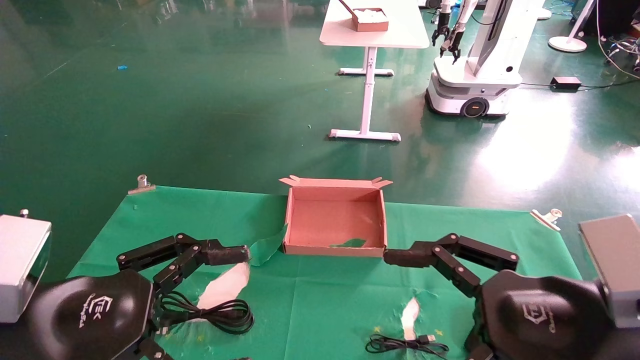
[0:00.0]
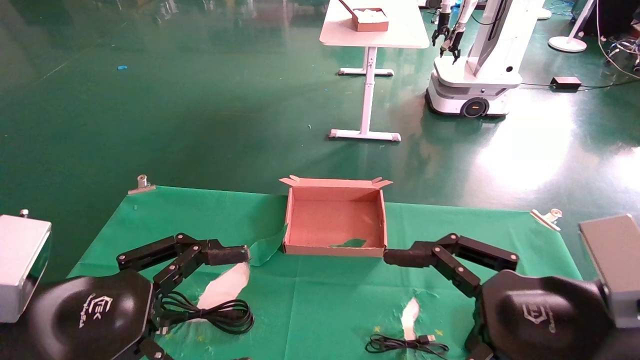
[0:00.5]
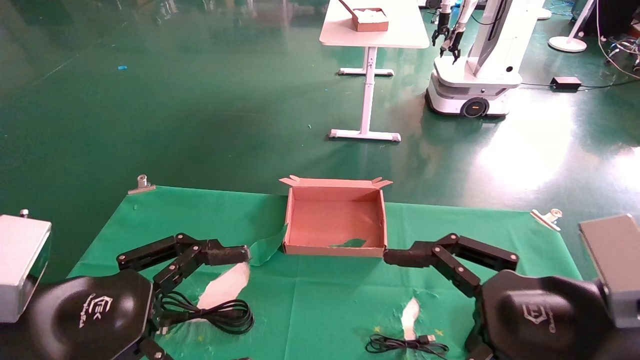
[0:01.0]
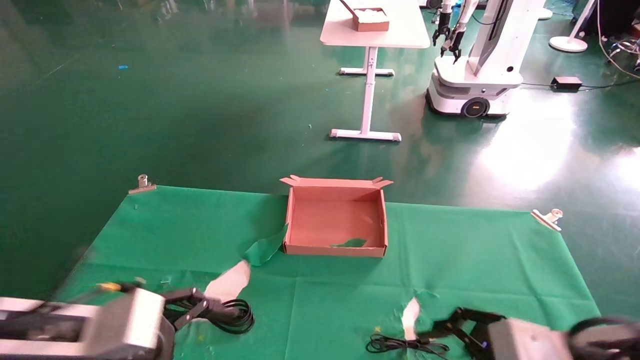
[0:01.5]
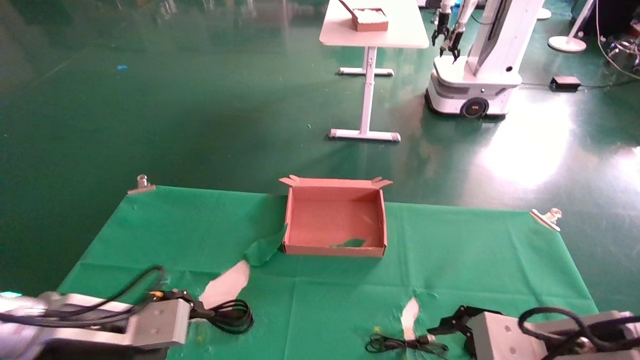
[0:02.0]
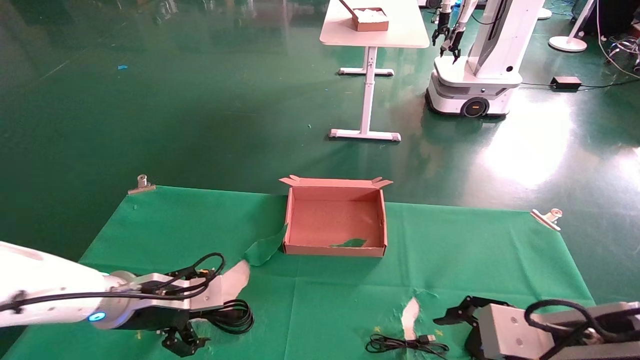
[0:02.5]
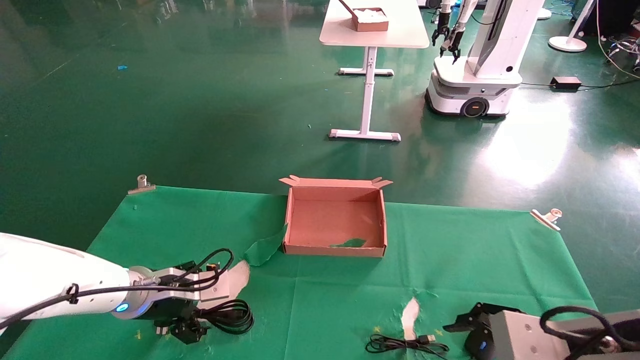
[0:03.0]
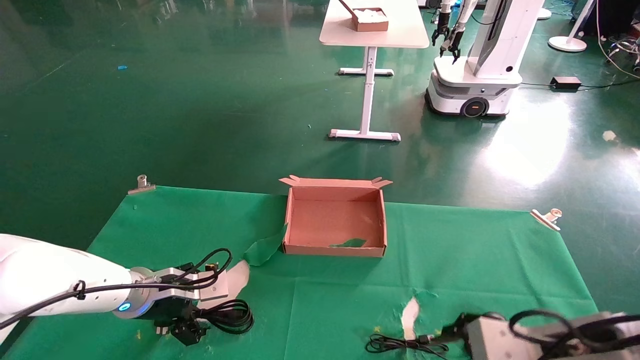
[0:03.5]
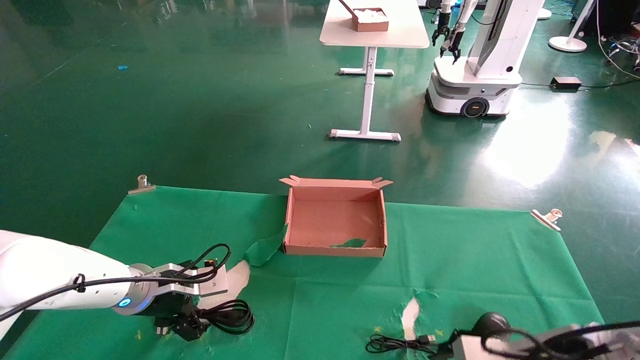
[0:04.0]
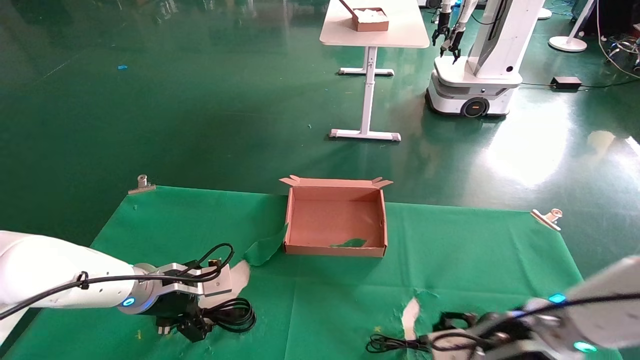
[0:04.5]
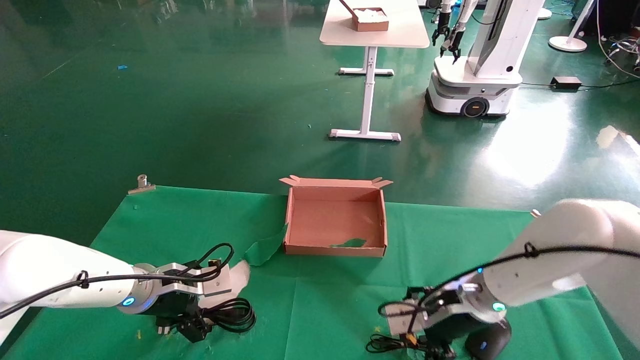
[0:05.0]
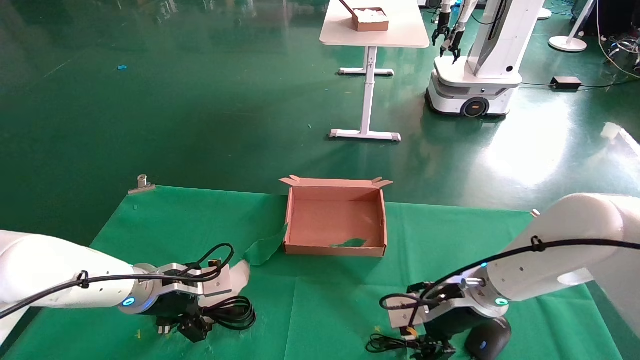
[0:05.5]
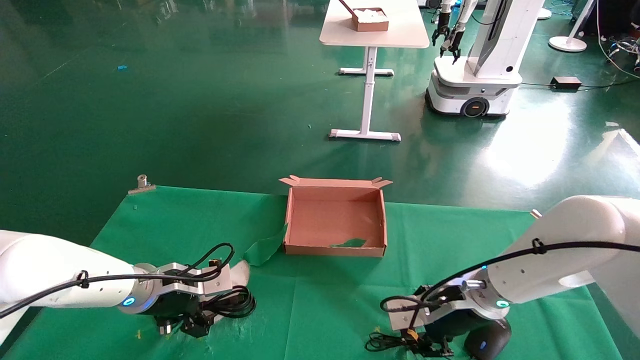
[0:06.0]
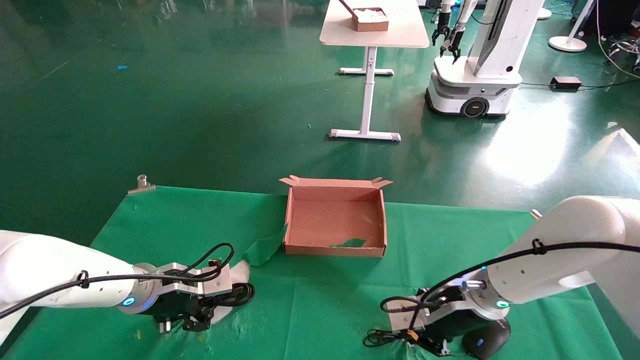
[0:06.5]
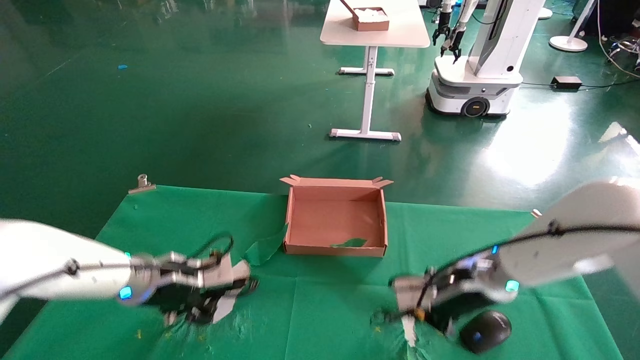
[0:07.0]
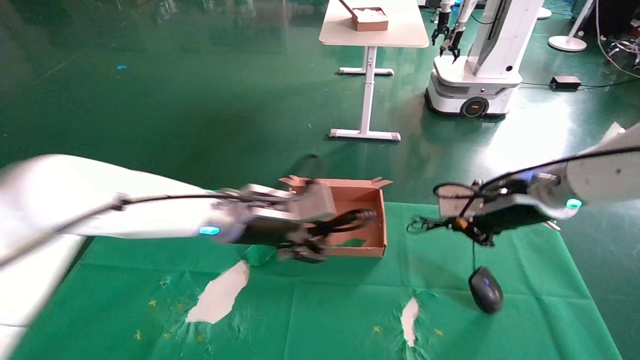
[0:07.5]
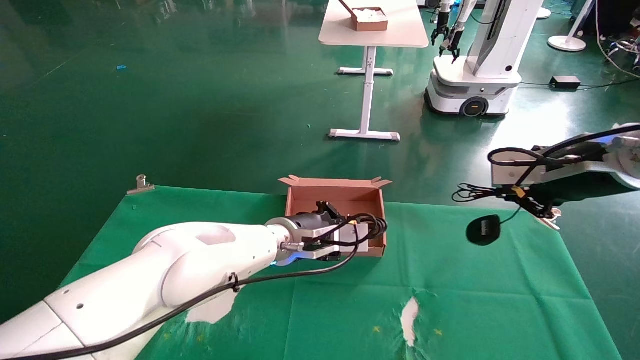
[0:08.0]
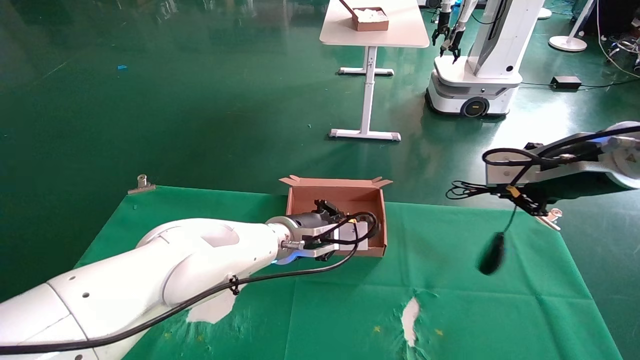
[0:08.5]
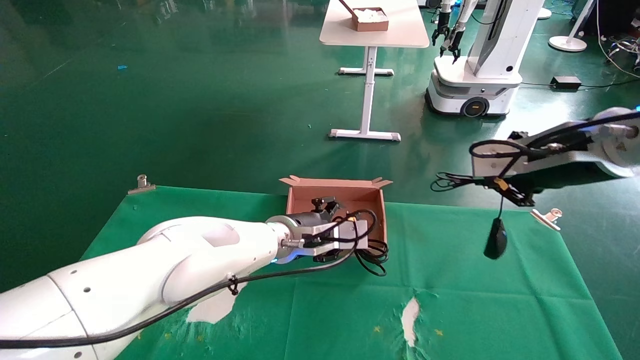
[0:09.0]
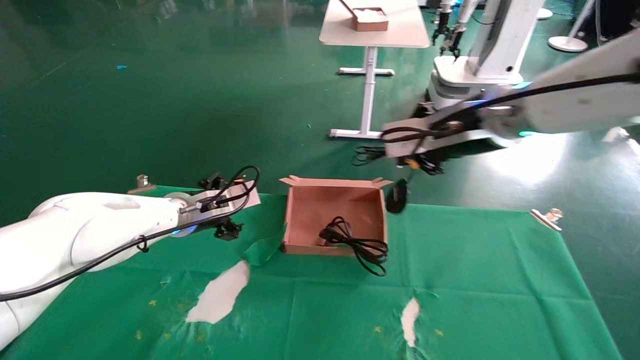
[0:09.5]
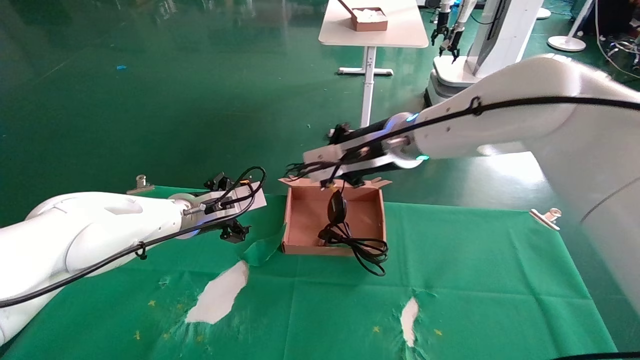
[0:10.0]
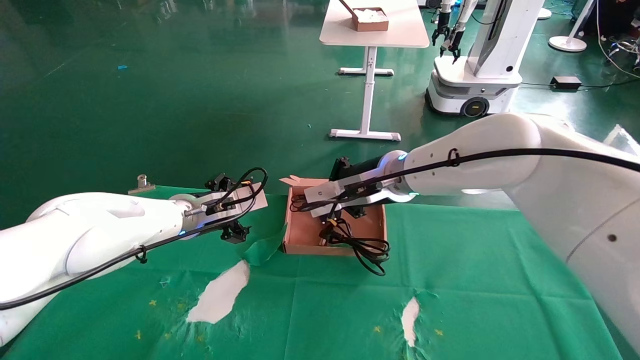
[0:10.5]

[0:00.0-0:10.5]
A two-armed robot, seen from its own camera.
Step, 0:02.0 to 0:06.0: Grab and lift both the mouse and power cord from the accessory packaging area at the same time.
0:00.0 to 0:02.0: The left gripper moves forward and downward, roughly 10 cm, while the right gripper goes approximately 10 cm downward and forward.
0:02.0 to 0:04.0: The left gripper travels forward by some 10 cm.
0:04.0 to 0:06.5: The left gripper closes, while the right gripper is displaced forward and to the left by roughly 15 cm, and closes up.
0:06.5 to 0:08.5: The left gripper goes roughly 20 cm to the right. The right gripper goes some 25 cm upward and to the right.
0:08.5 to 0:10.5: The right gripper heads to the left and forward, covering approximately 25 cm; the left gripper goes about 15 cm to the left, and opens its fingers.

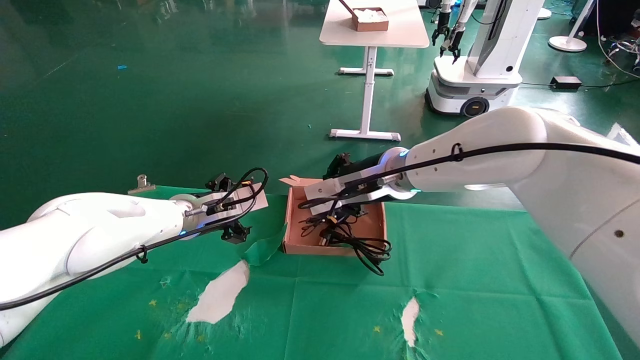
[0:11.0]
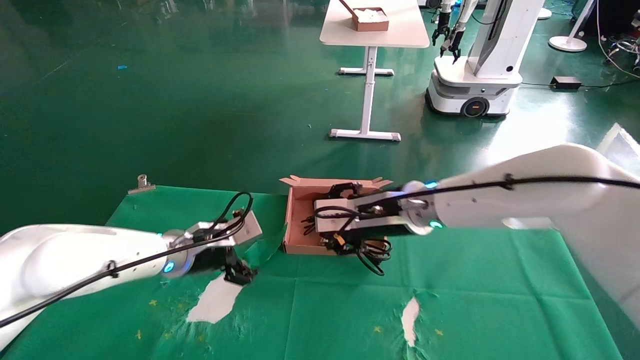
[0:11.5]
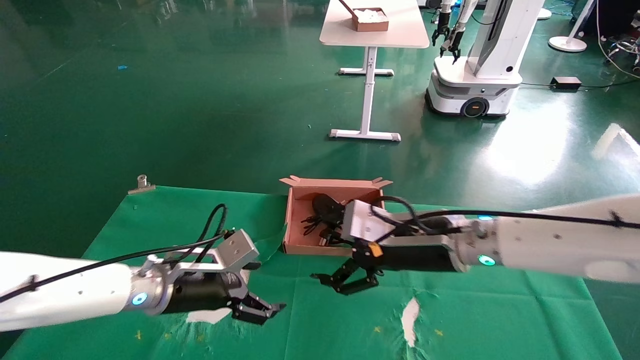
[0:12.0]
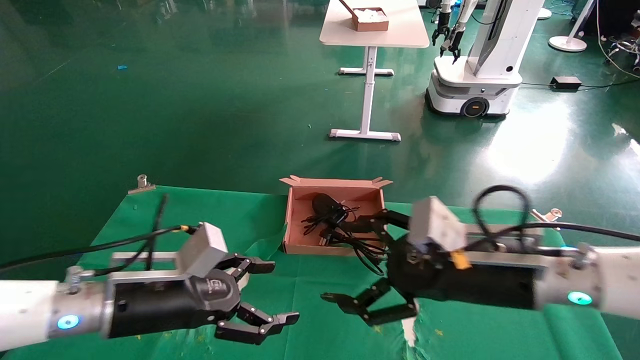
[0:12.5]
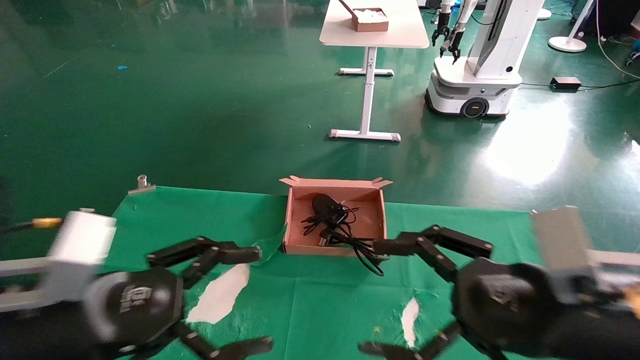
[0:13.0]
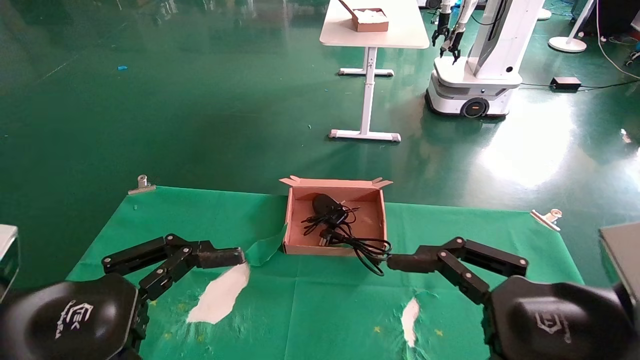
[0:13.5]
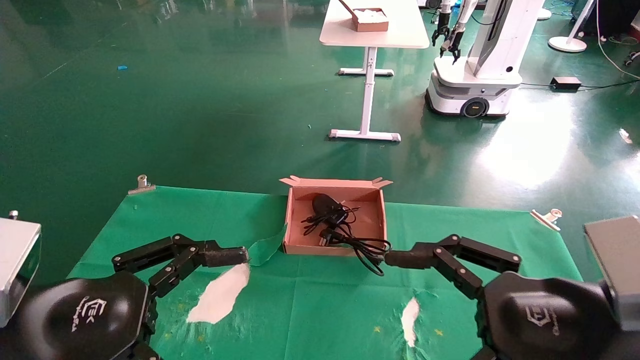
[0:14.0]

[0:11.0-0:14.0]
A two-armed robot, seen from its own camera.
0:11.0 to 0:12.5: The left gripper heads backward, covering about 15 cm. The right gripper heads backward, to the right and downward, covering approximately 20 cm, and opens its fingers.
0:12.5 to 0:14.0: The right gripper is displaced backward and to the right by some 15 cm. Meanwhile the left gripper is displaced backward and upward by approximately 15 cm.
